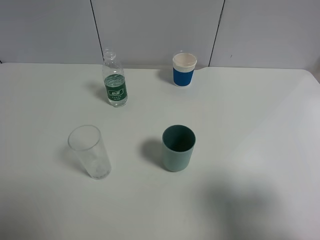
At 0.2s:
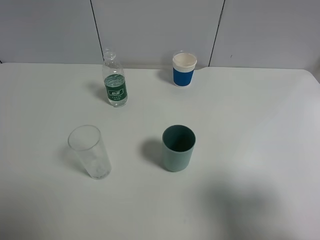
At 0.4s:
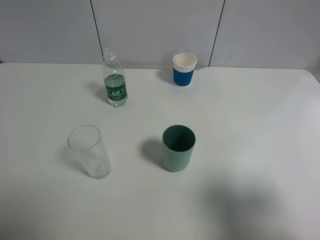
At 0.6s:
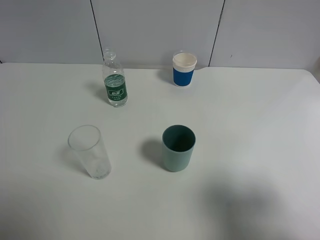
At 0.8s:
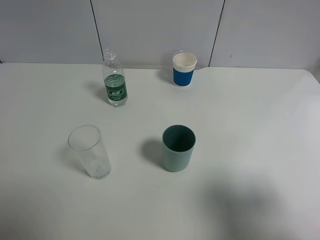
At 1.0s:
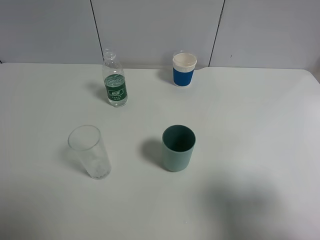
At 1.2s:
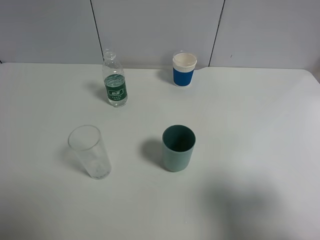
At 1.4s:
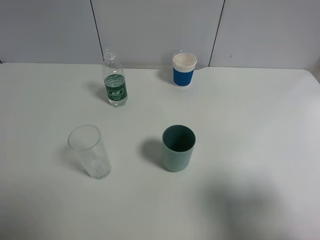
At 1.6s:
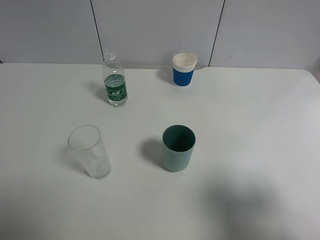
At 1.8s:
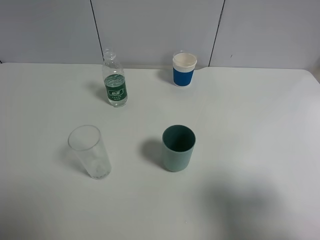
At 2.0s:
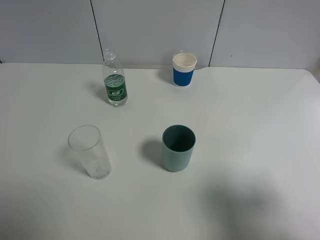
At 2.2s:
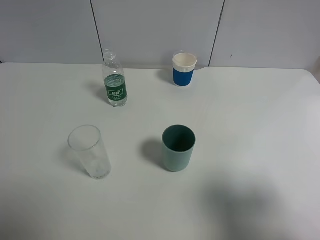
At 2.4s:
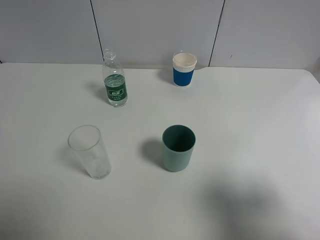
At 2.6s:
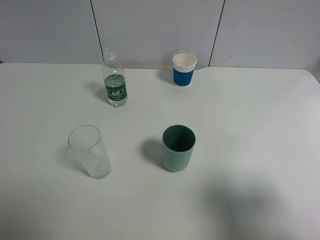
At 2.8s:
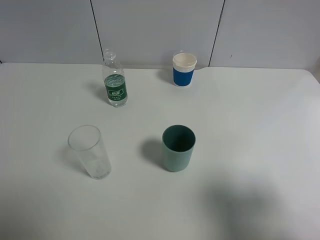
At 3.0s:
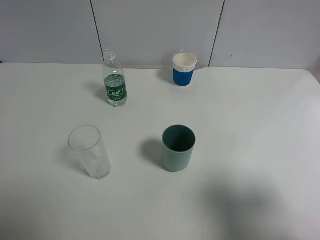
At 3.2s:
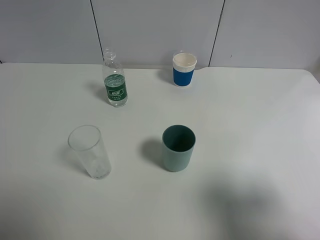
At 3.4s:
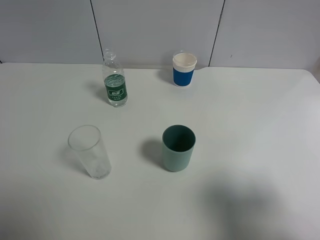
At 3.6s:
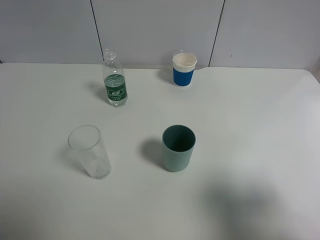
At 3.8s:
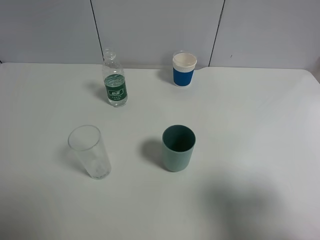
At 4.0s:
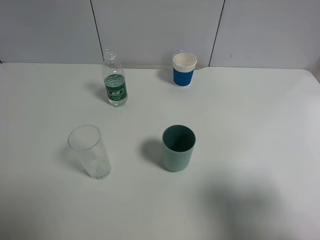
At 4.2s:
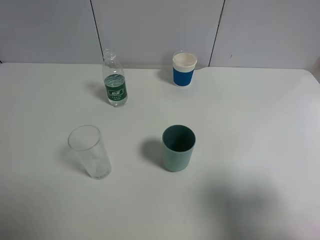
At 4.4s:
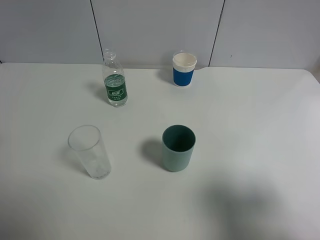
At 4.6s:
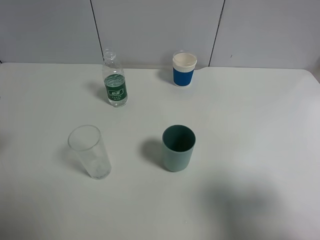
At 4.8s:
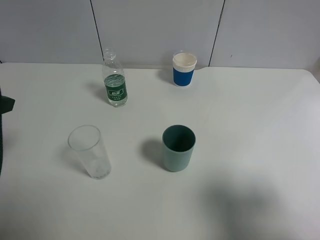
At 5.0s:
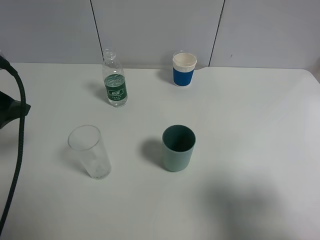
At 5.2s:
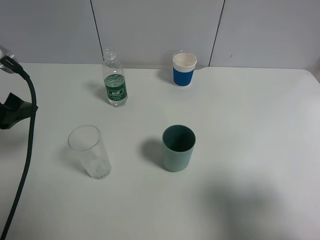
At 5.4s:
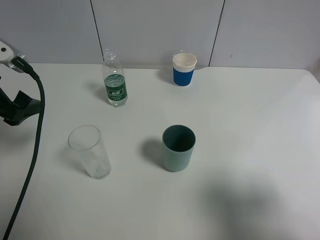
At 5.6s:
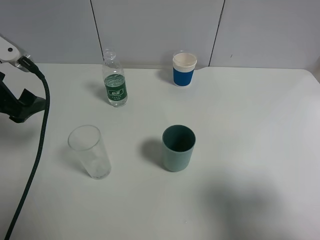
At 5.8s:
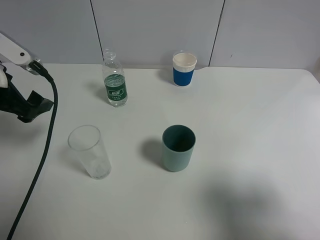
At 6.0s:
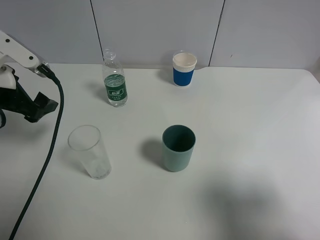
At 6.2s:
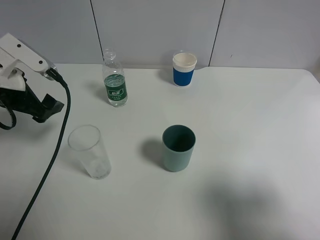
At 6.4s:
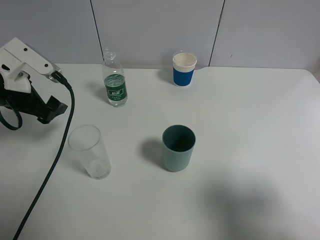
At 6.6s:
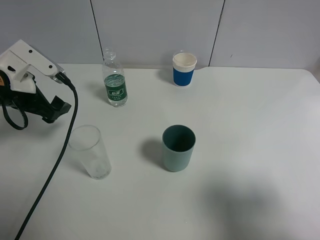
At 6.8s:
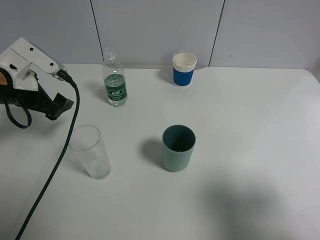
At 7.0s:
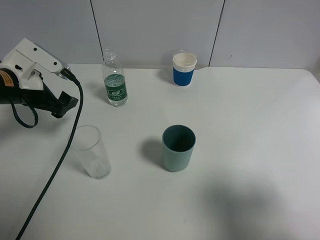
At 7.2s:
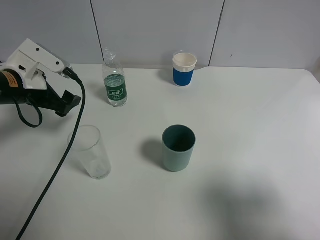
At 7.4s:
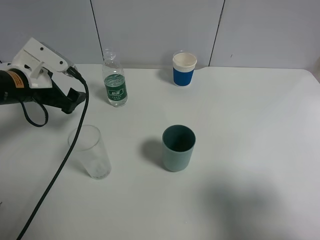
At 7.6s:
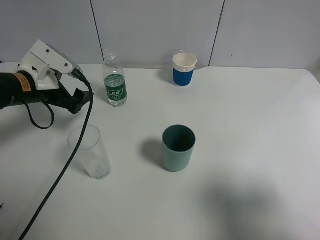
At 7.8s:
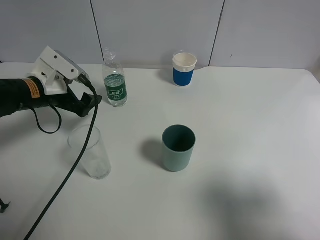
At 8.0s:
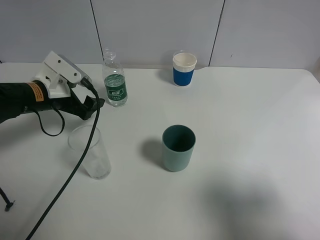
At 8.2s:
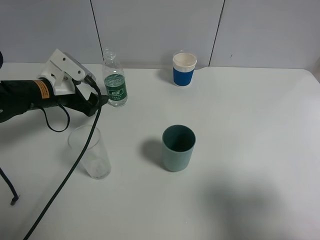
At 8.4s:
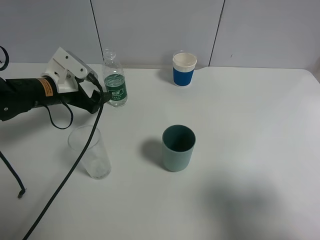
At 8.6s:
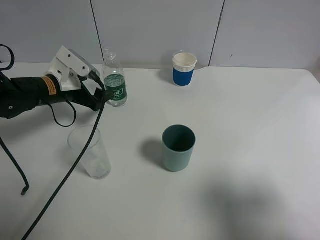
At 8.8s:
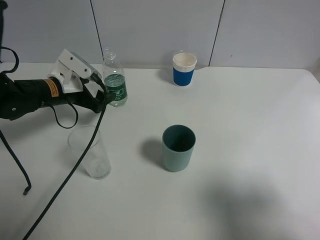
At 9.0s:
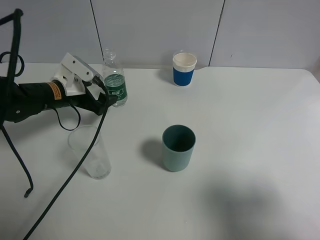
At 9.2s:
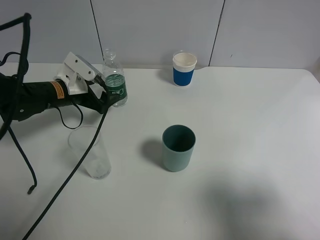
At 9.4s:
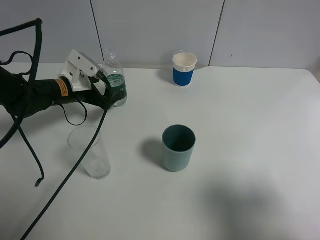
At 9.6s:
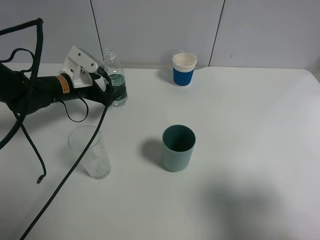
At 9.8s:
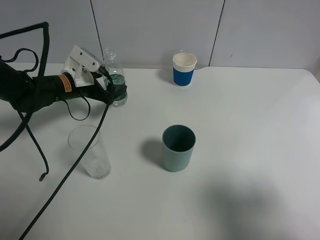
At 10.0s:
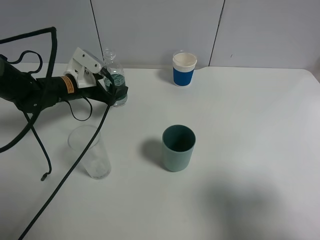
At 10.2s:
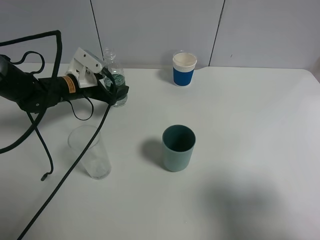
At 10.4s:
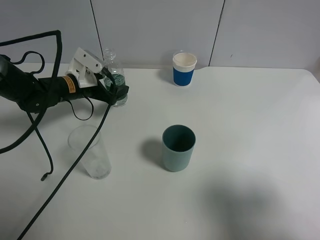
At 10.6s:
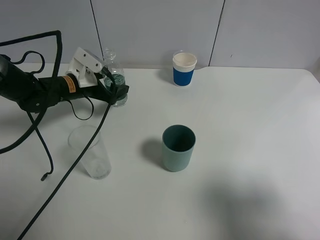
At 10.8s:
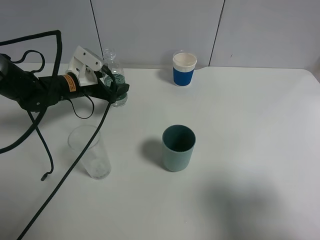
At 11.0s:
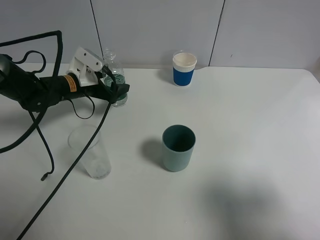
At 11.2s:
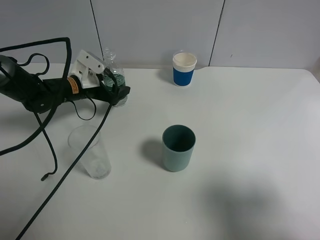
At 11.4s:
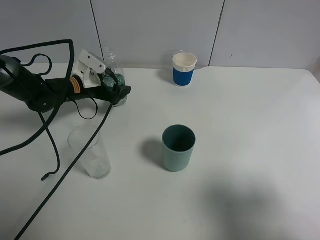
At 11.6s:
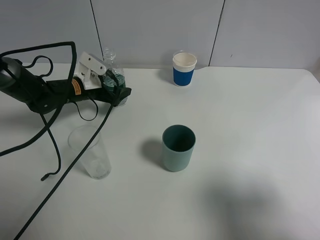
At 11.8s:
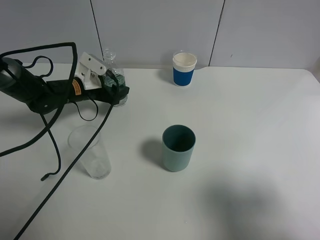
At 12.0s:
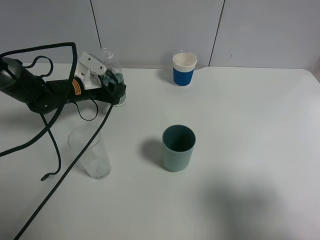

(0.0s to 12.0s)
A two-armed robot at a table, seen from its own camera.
Task of the whole recording: use a gripper to hold the bottle of the drink and pour it into a random cup.
Step, 0.0s - 12.0s: Grasp the mineral water bottle with the left gripper.
0.0s - 3.0s: Neither gripper changes place.
4.4s - 6.0s: The left gripper goes roughly 15 cm forward and downward.
6.0s - 7.6s: The left gripper travels downward and forward by roughly 10 cm.
7.6s - 9.0s: The left gripper moves some 5 cm.
9.0s - 10.4s: The grippers make only small movements.
10.4s - 12.0s: The left gripper closes.

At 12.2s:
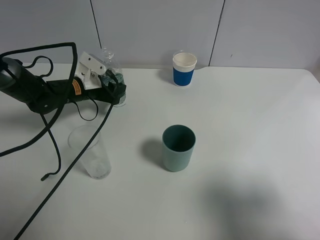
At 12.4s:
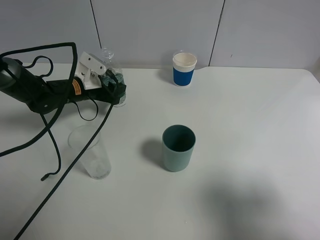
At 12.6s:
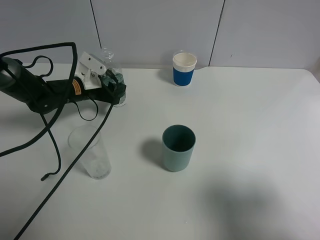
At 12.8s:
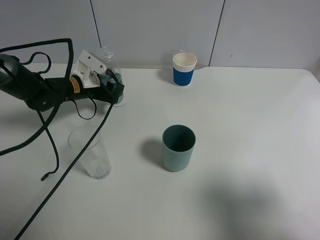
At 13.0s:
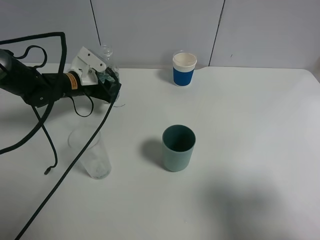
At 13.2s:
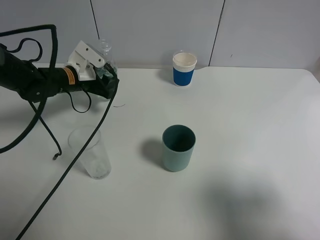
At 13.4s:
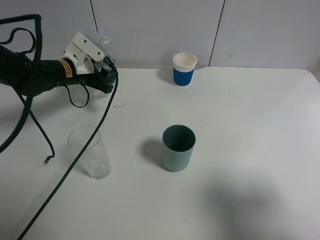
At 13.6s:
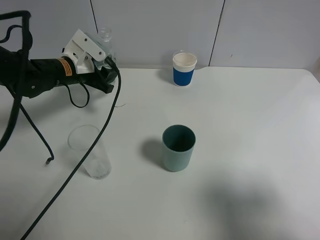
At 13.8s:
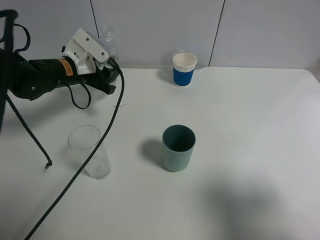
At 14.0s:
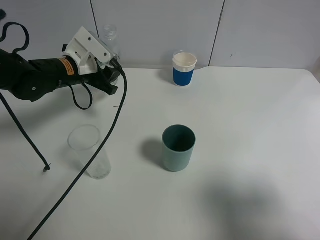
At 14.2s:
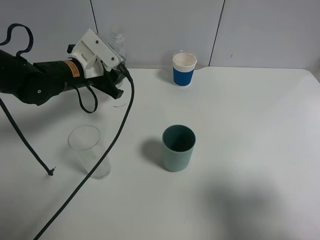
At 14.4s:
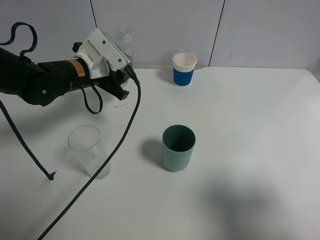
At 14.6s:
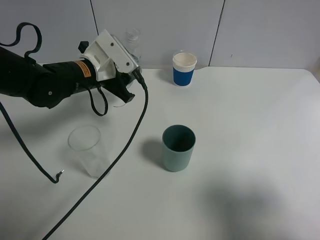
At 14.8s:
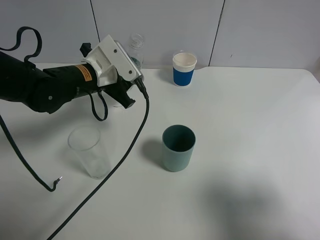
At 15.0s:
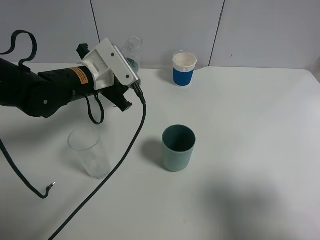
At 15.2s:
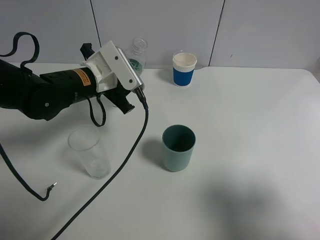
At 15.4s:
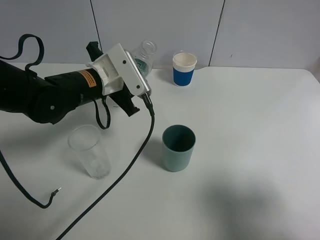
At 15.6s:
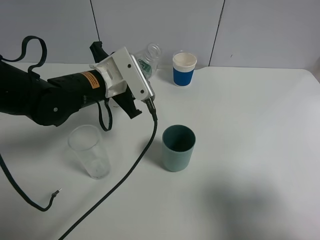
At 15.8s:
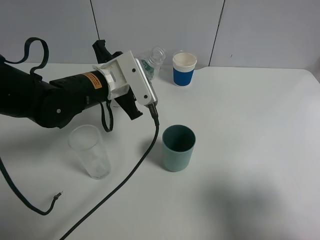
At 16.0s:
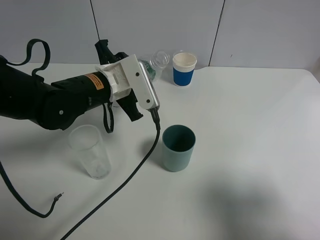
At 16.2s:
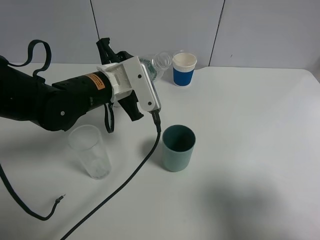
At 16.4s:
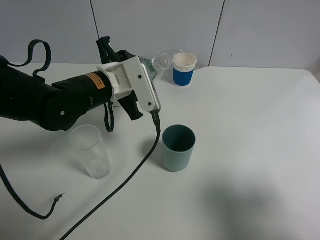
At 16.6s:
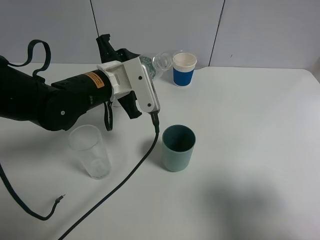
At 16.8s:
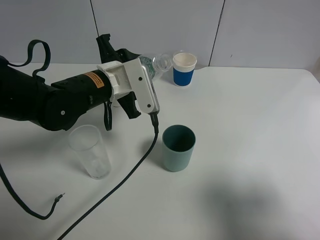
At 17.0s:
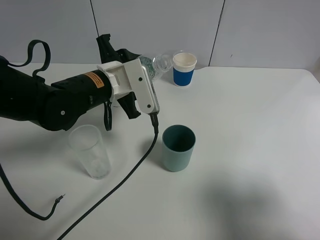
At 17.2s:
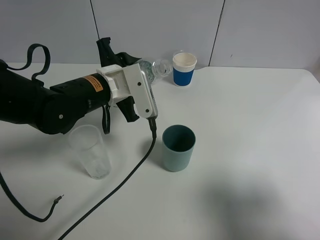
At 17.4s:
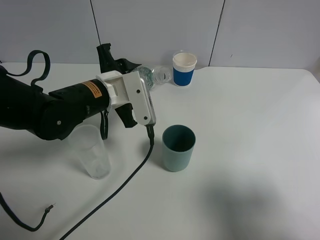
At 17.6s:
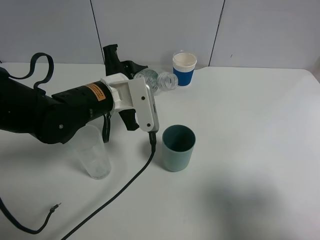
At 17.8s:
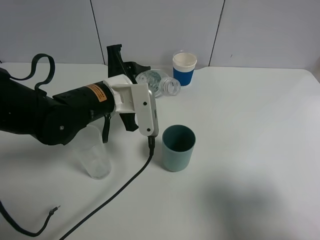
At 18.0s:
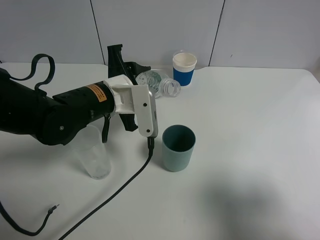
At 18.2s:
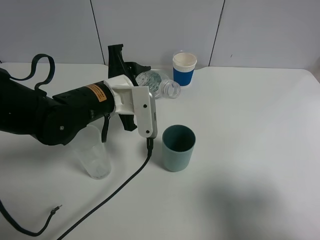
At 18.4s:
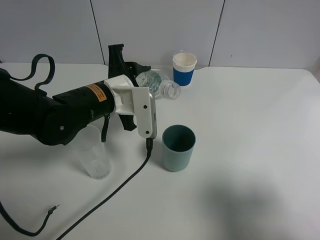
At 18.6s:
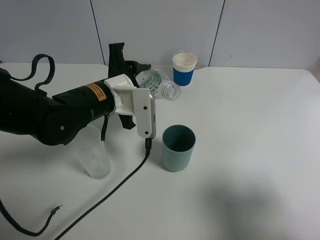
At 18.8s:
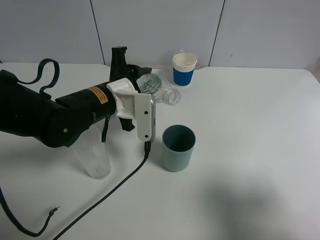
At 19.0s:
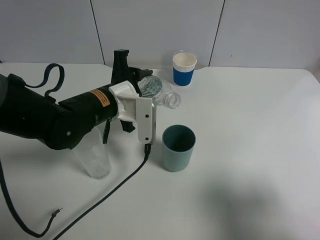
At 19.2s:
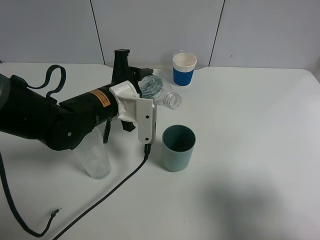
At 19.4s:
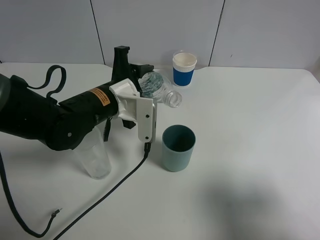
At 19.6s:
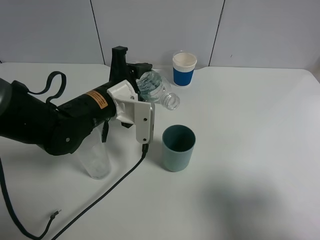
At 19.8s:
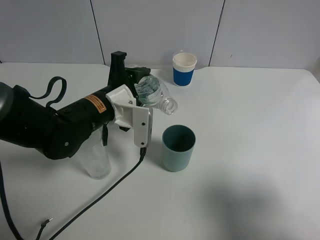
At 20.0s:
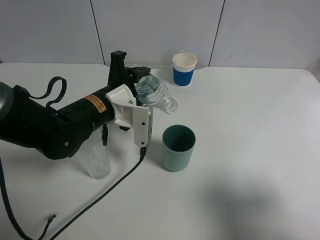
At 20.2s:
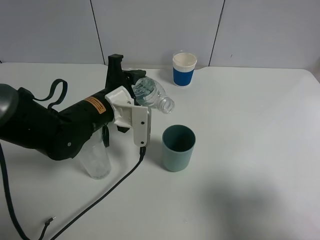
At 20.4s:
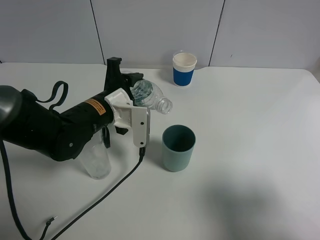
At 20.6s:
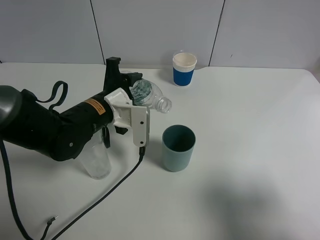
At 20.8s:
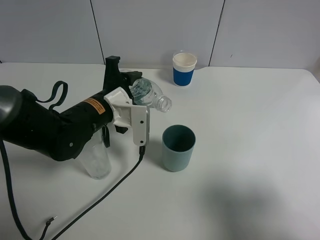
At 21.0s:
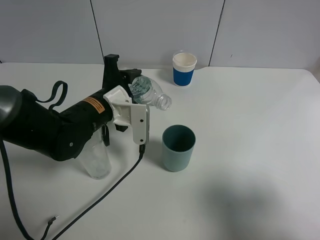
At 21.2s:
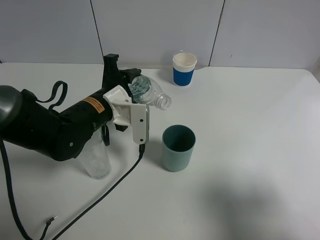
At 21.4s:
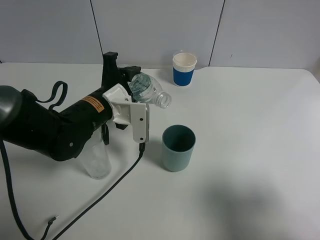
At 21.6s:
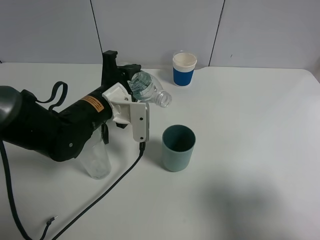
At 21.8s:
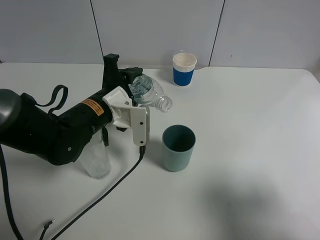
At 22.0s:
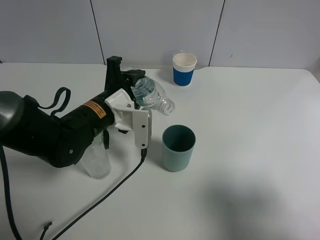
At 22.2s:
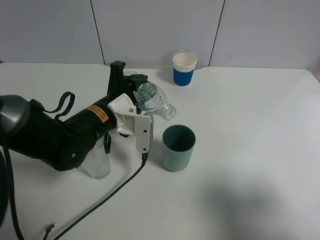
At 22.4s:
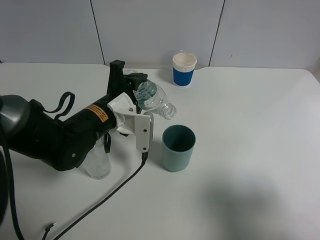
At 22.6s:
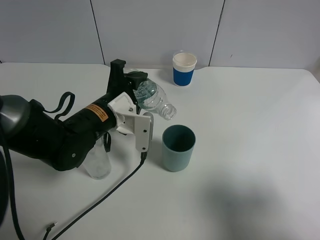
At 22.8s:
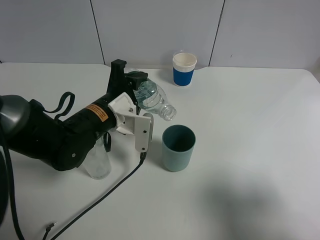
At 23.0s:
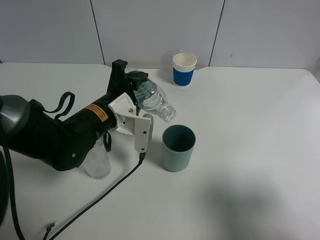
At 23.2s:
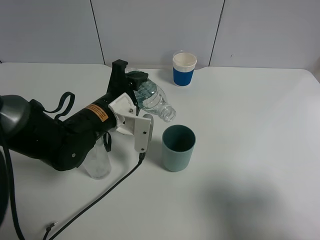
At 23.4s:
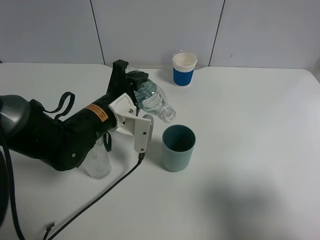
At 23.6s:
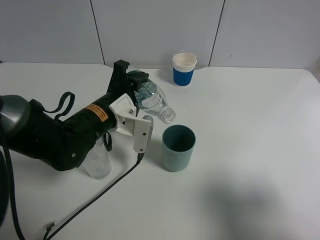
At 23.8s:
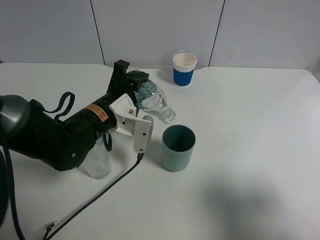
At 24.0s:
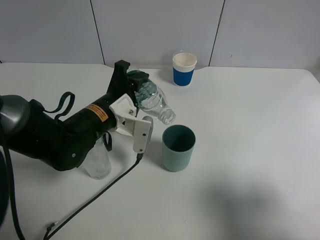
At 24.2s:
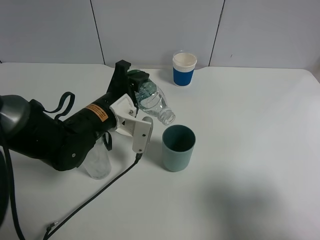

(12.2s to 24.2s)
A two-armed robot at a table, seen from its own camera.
Task of the whole recording: use a gripper to hold the bottle of the drink and pour it into a random cup.
12.2s - 13.8s: The left gripper is displaced upward by roughly 5 cm.
13.8s - 15.2s: The left gripper heads backward and to the right, covering roughly 10 cm.
16.6s - 18.2s: The grippers stay close to where they were, moving slightly.
18.2s - 22.6s: There are only small adjustments of the grippers.
22.6s - 24.2s: The grippers stay close to where they were, moving slightly.
